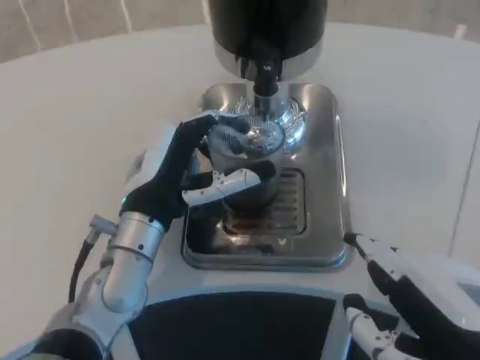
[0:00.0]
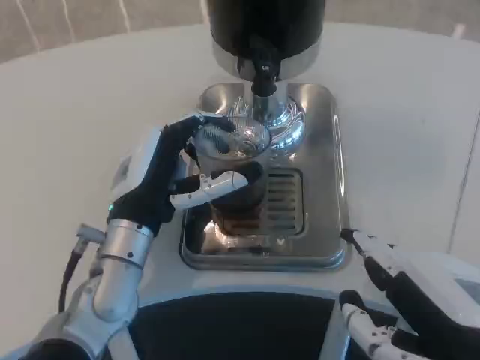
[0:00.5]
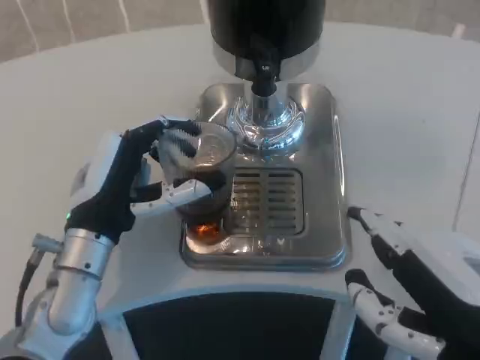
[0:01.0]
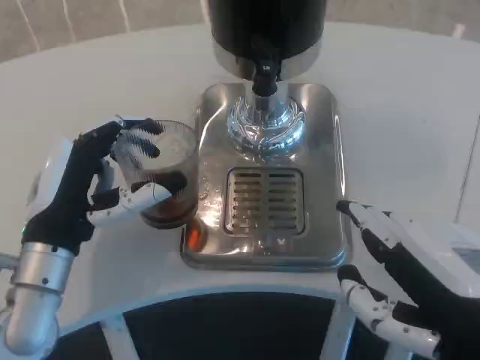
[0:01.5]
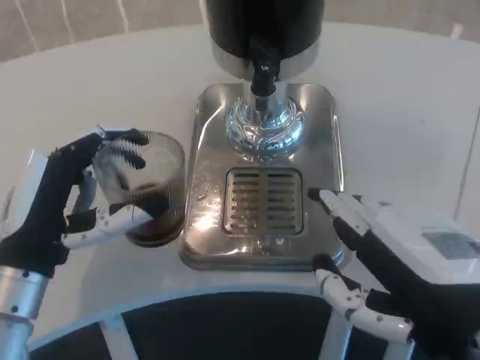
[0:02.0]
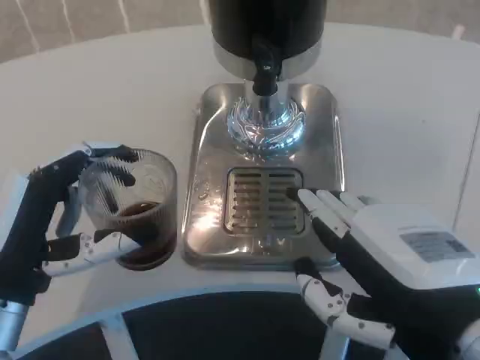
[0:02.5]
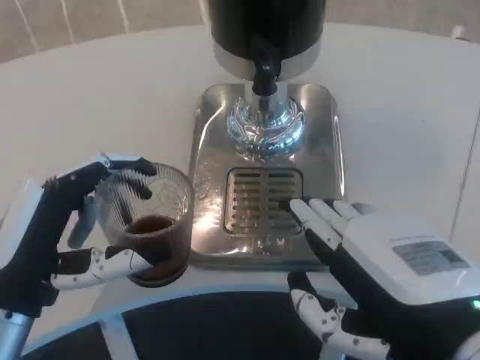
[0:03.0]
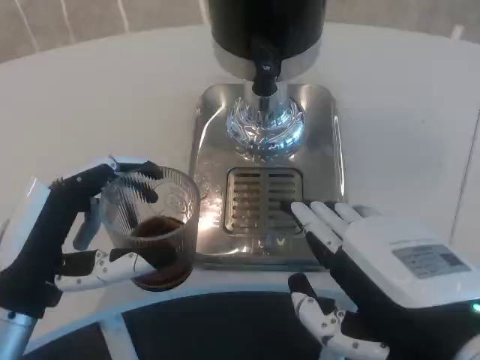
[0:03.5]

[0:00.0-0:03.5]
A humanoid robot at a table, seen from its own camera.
Task of the whole recording: Grasp the cup under the faucet to collect the drink, then remove the cup.
0:00.0 to 0:02.0: The left hand heads to the left and backward, covering approximately 10 cm.

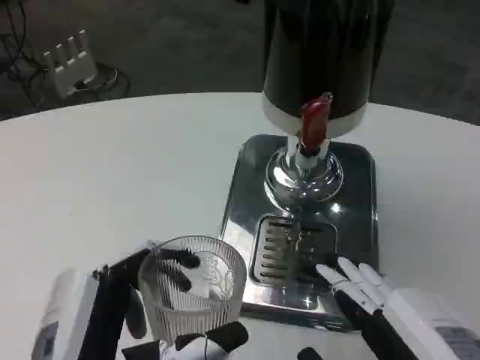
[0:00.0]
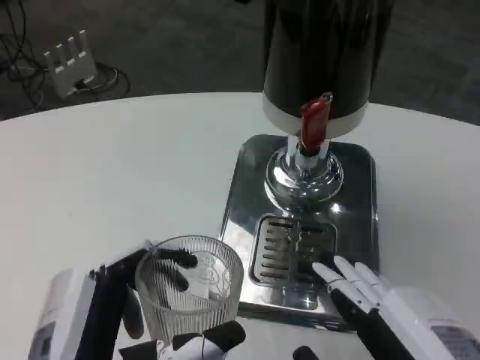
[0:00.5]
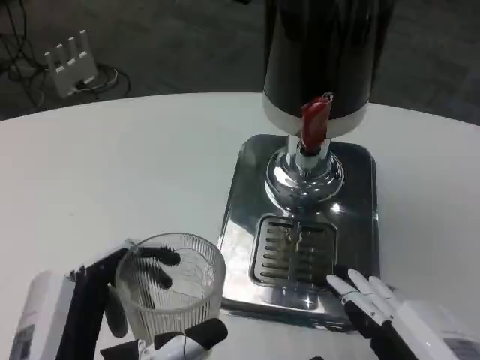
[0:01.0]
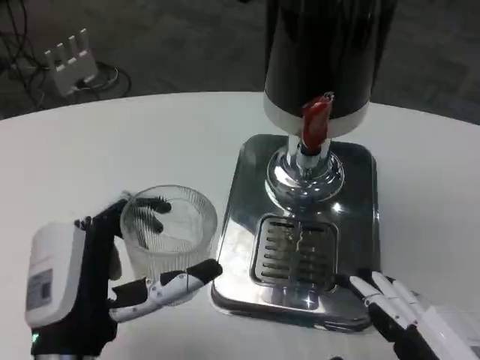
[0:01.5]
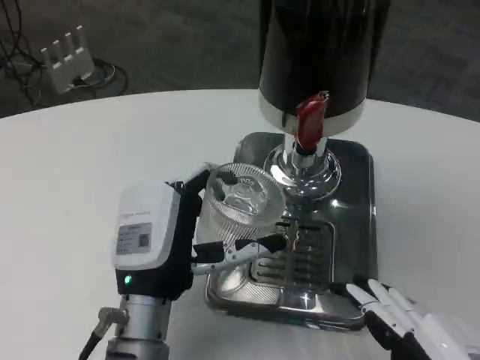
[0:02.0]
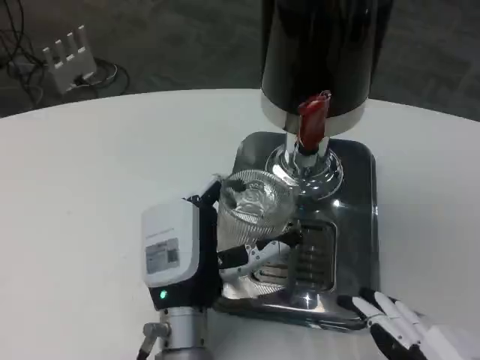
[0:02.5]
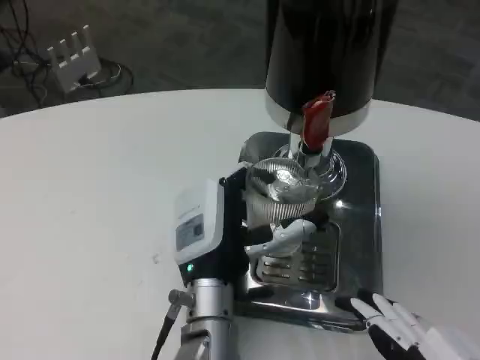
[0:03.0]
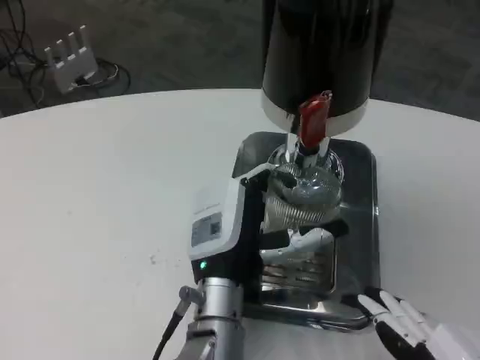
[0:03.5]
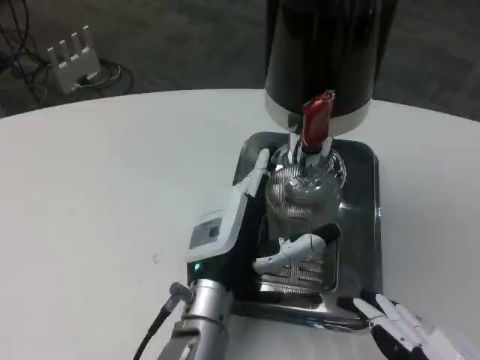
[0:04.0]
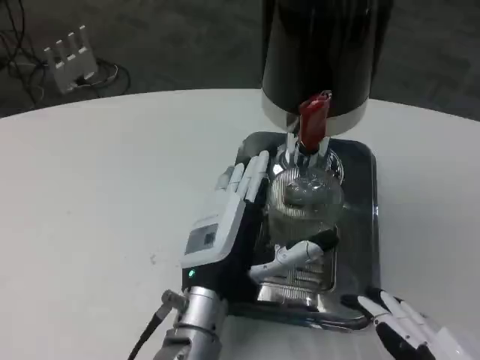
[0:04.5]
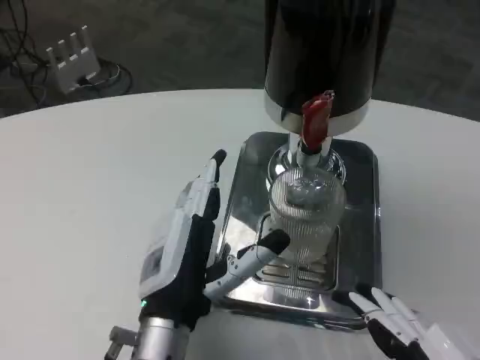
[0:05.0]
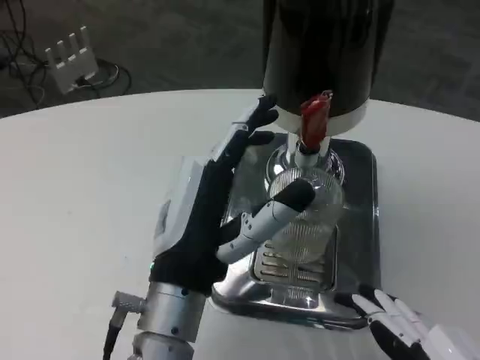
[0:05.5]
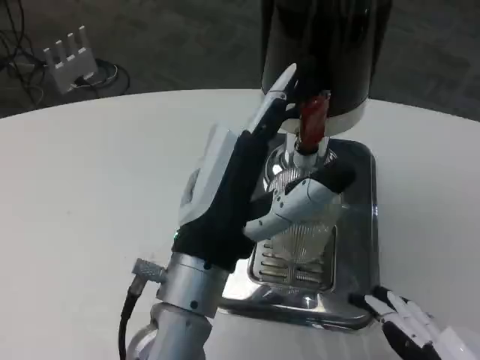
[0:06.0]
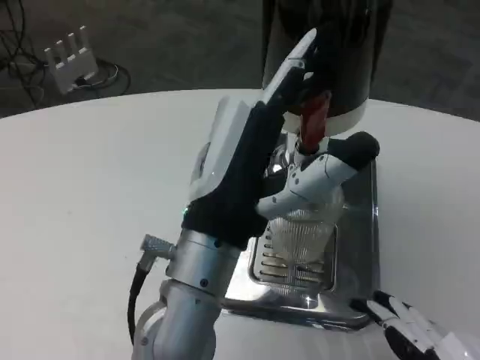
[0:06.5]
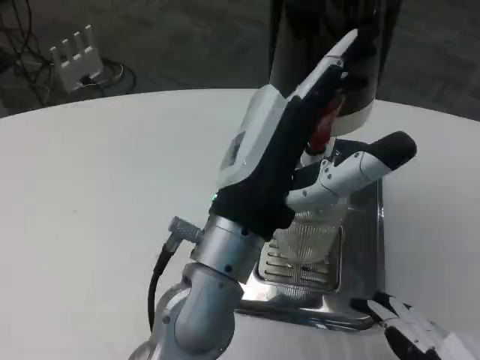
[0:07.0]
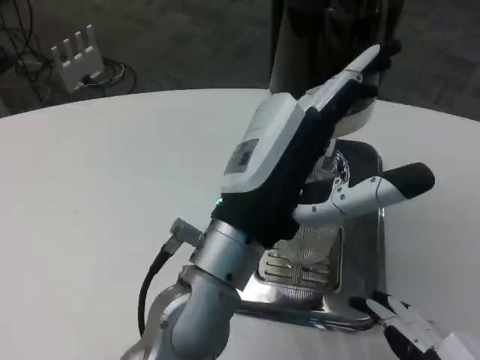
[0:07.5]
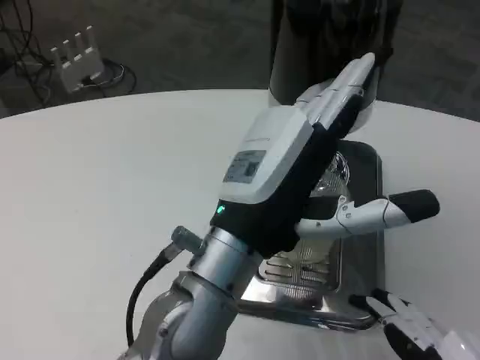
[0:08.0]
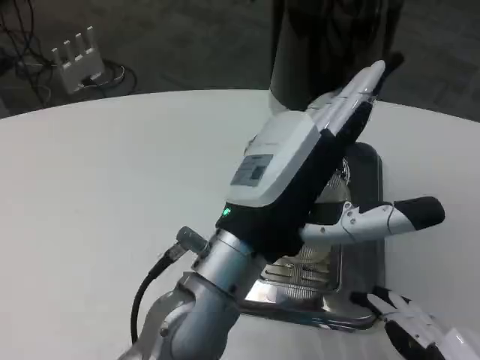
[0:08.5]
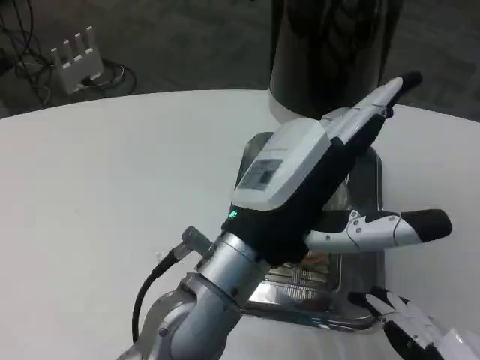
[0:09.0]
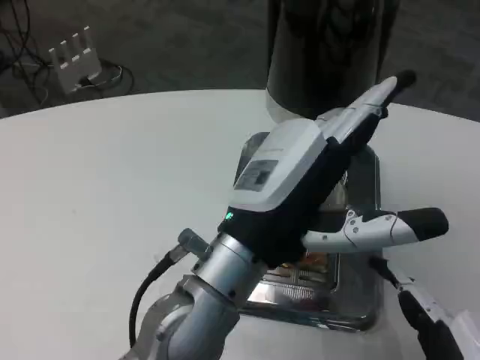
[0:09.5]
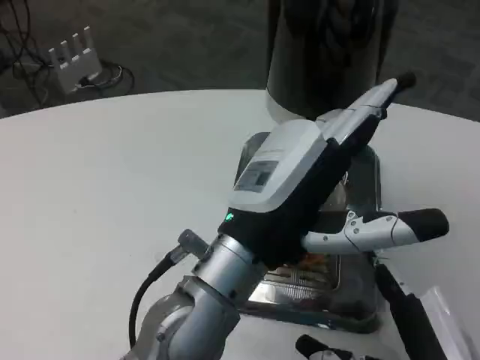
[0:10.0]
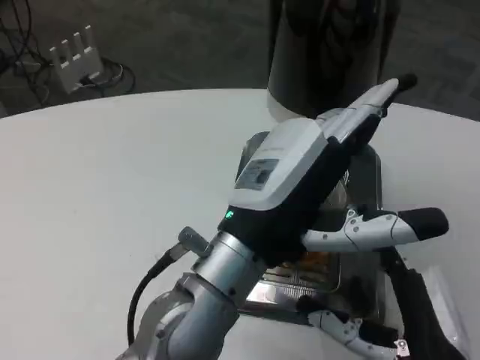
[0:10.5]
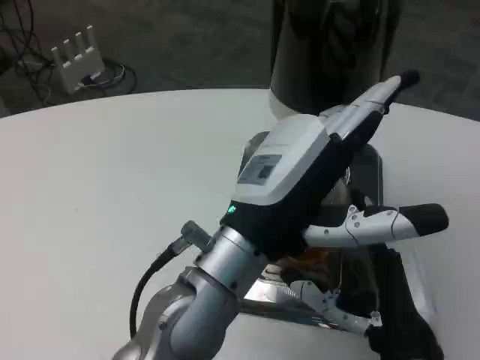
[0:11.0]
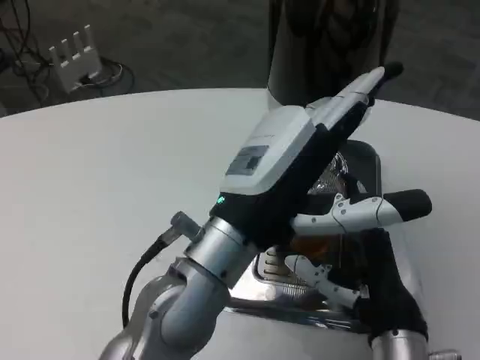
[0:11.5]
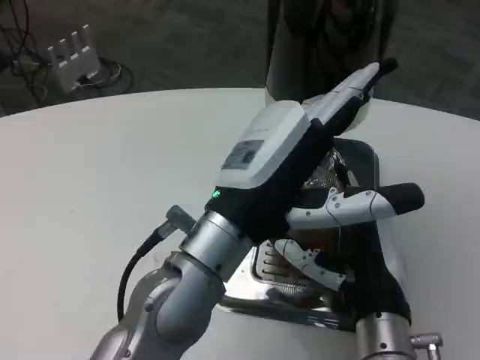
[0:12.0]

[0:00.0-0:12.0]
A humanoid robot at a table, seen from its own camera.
Task of the whole recording: Grasp the cup under the faucet to collect the drink, then remove the cup.
0:00.0 to 0:02.0: The left hand travels forward by roughly 15 cm.
0:02.0 to 0:04.0: The left hand heads to the right, covering some 5 cm.
0:04.0 to 0:06.0: The left hand moves upward and backward, about 10 cm.
0:08.0 to 0:10.0: The right hand heads forward, covering about 5 cm.
0:10.0 to 0:12.0: The right hand moves forward and to the left, approximately 10 cm.

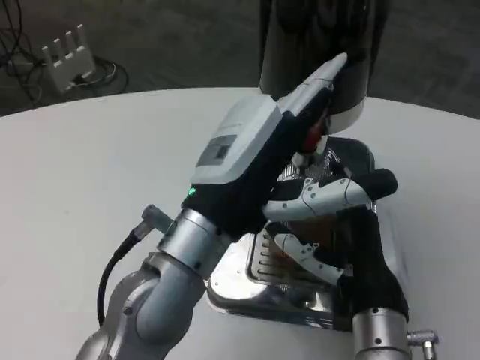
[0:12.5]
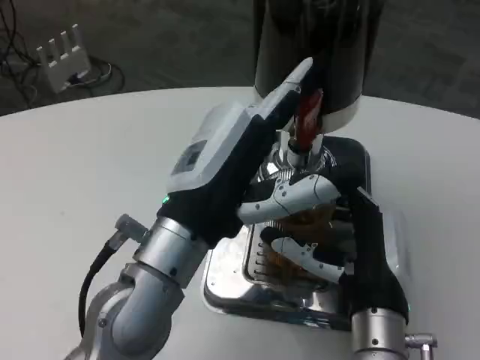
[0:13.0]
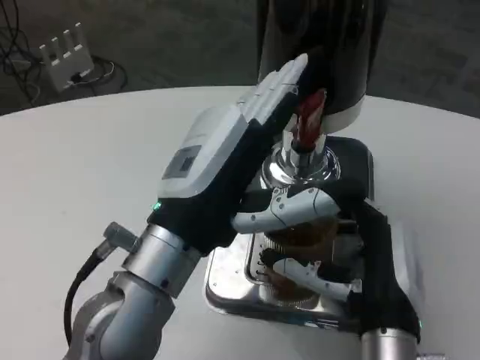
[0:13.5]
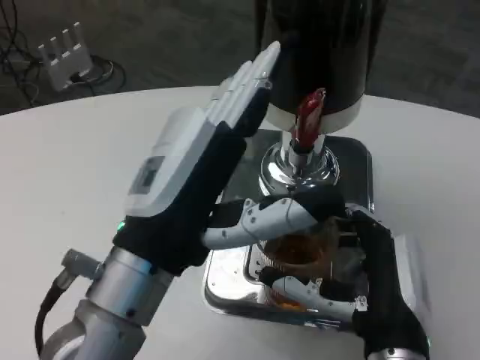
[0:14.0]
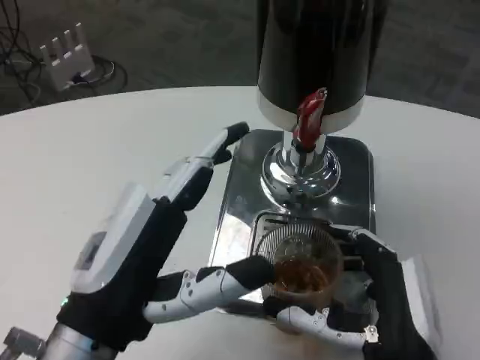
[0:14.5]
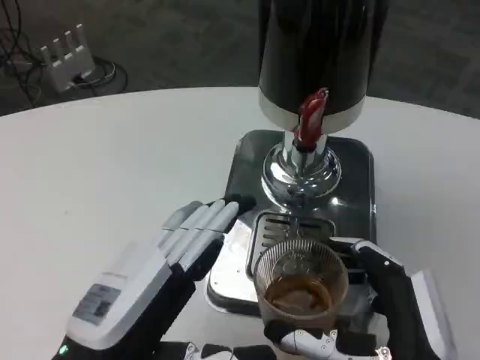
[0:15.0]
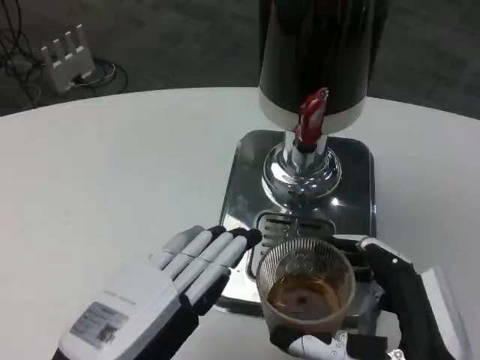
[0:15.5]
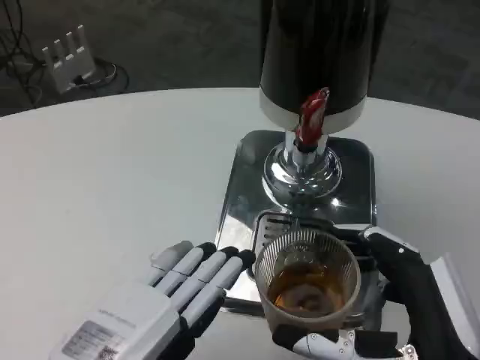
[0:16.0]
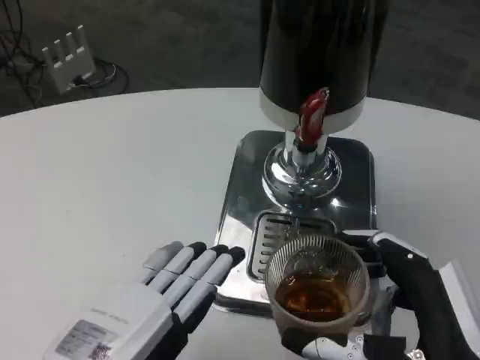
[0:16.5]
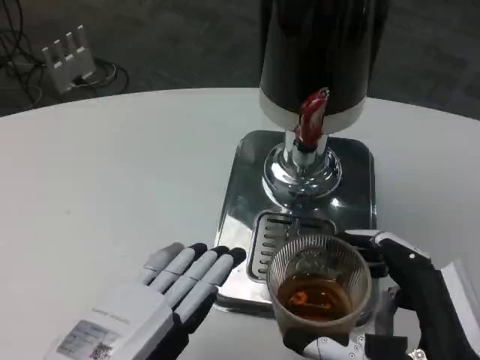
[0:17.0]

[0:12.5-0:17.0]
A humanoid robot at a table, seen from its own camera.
Task of the whole recording: Grasp the cup under the faucet to collect the drink, then remove the cup.
0:12.5 to 0:14.5: The left hand heads backward and to the left, covering roughly 10 cm. Meanwhile the right hand shifts approximately 5 cm backward.
0:14.5 to 0:17.0: The right hand moves about 5 cm, while the left hand changes place by approximately 5 cm.

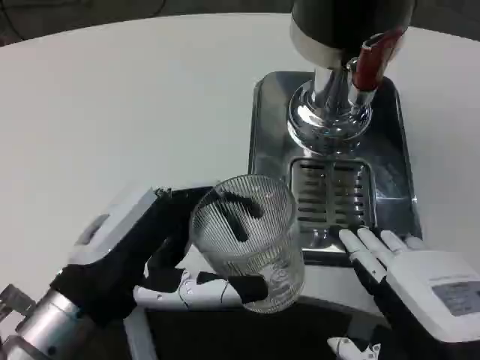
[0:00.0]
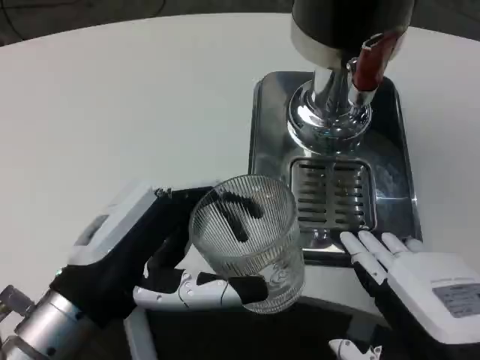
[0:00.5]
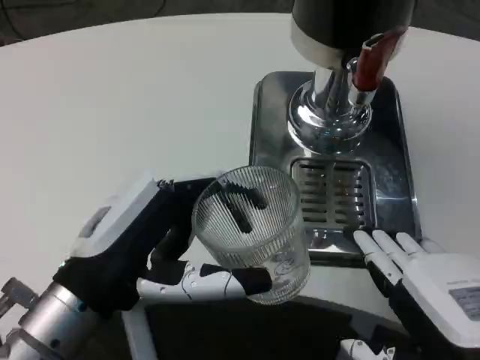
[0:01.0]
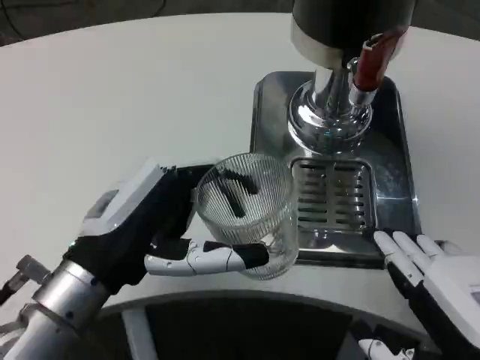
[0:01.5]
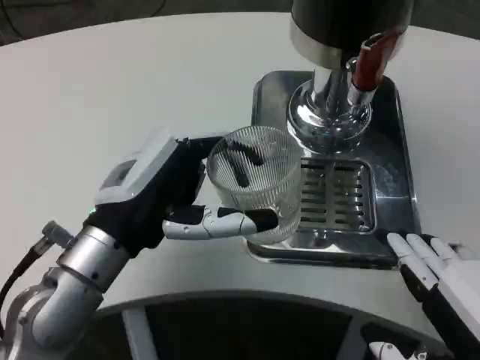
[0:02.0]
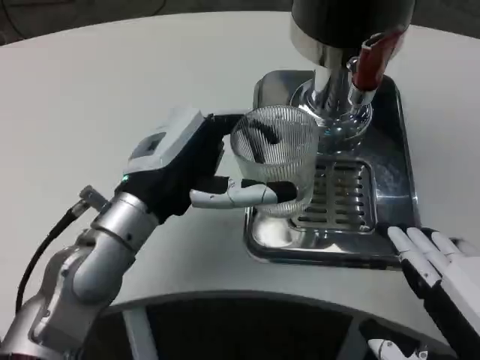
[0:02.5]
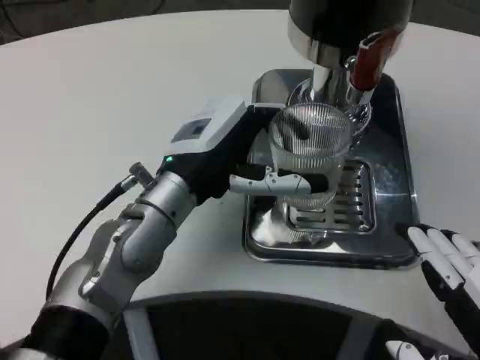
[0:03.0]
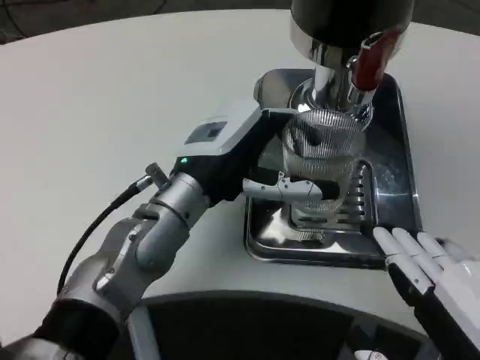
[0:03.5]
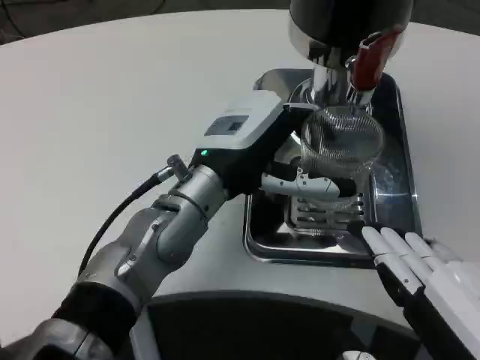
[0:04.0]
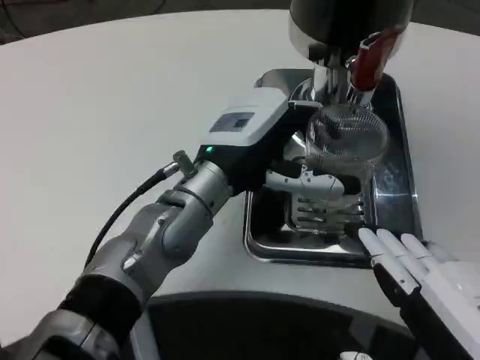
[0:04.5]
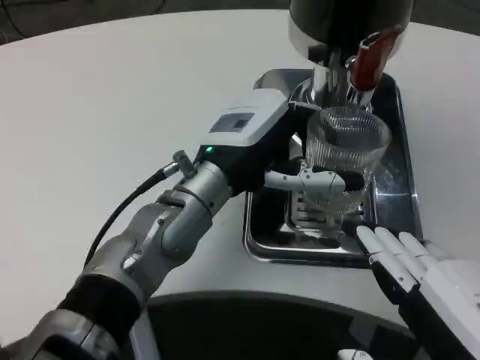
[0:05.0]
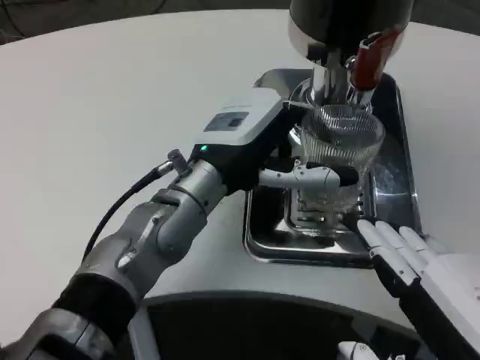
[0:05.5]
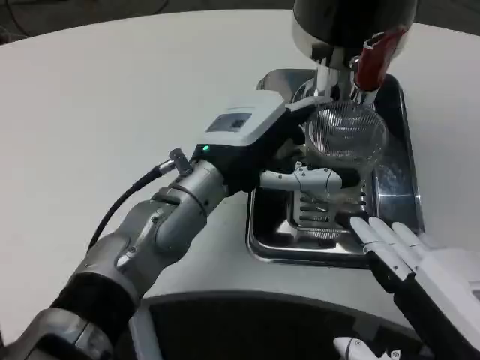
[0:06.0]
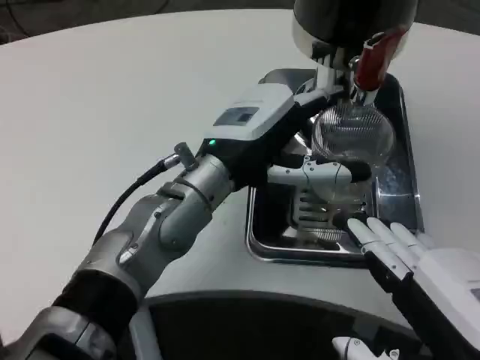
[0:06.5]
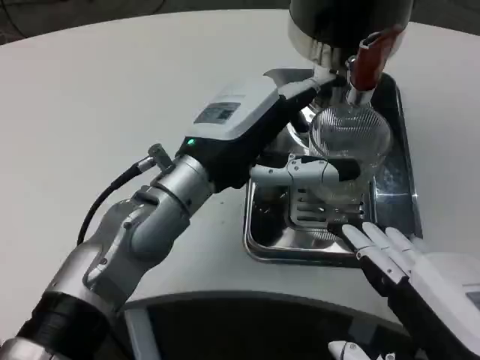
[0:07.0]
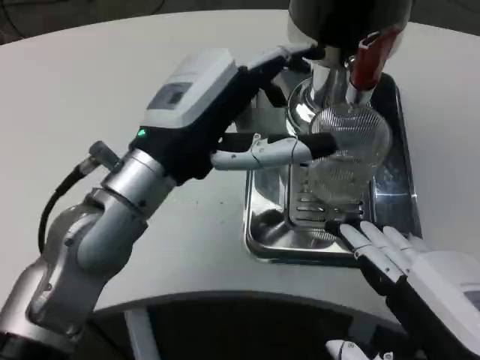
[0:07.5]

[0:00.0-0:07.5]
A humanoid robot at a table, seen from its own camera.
Task of the whole recording: Grasp the cup under the faucet to collect the drink, then remove the cup.
0:00.0 to 0:02.0: The left hand travels forward by about 5 cm.
0:02.0 to 0:04.0: The left hand shifts some 10 cm to the right and forward.
0:04.0 to 0:05.5: Neither hand changes place.
0:05.5 to 0:07.5: The left hand shifts some 5 cm backward.
